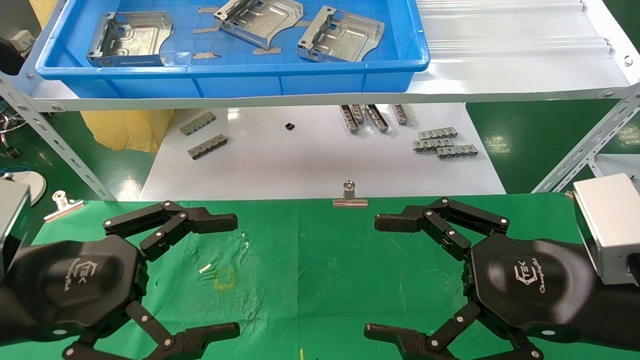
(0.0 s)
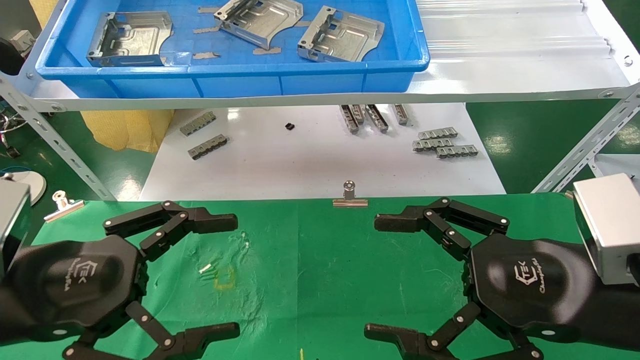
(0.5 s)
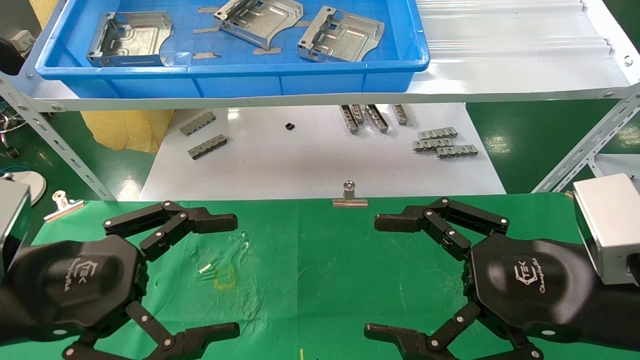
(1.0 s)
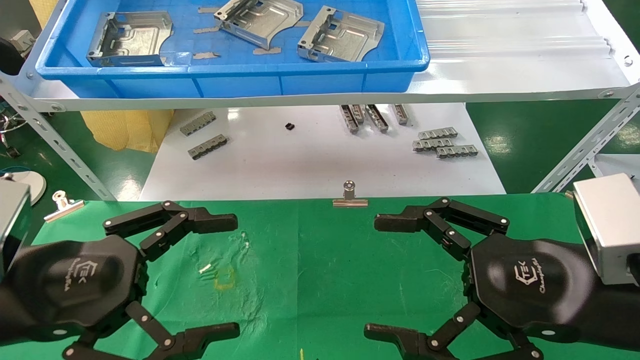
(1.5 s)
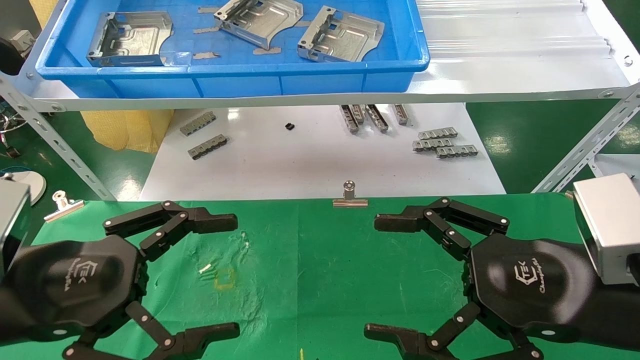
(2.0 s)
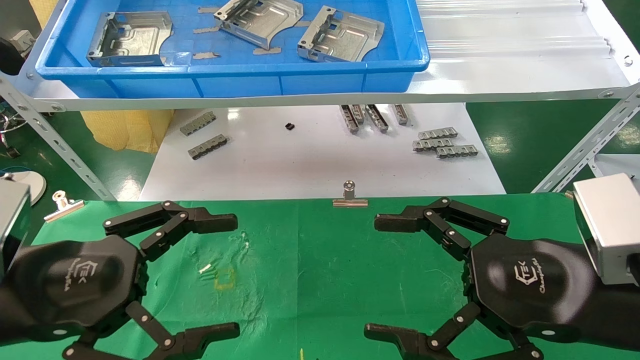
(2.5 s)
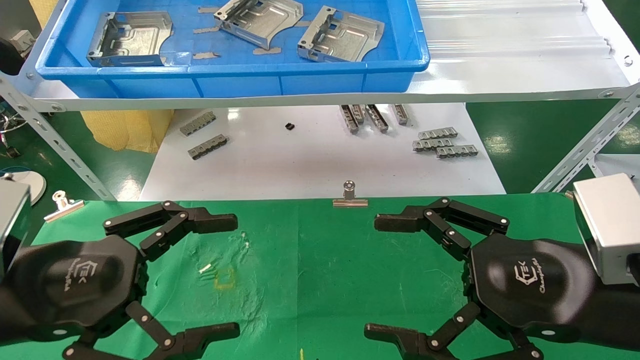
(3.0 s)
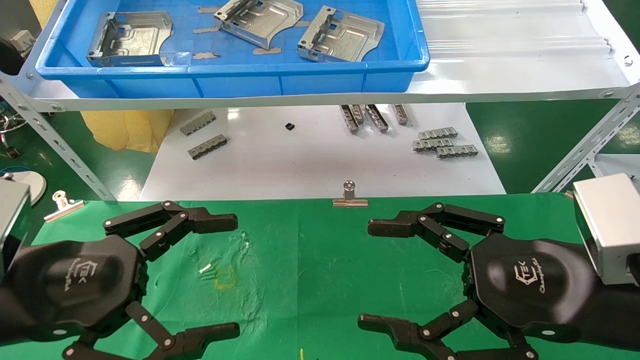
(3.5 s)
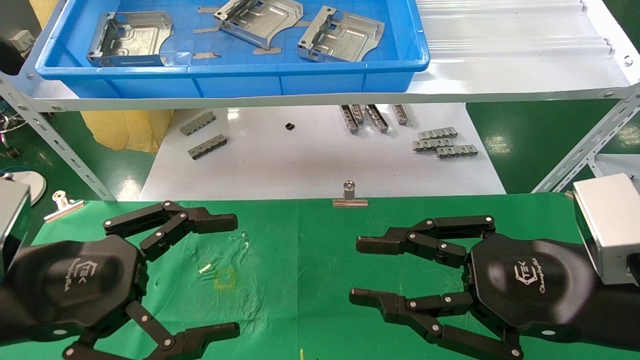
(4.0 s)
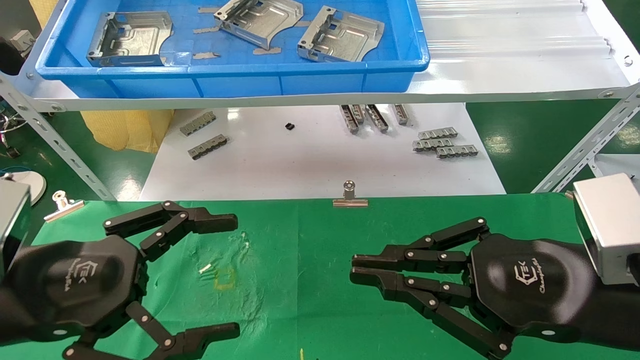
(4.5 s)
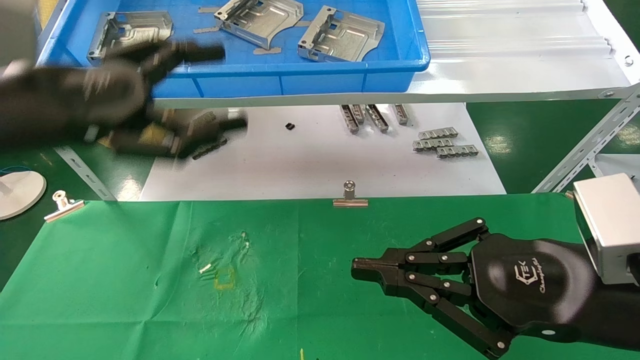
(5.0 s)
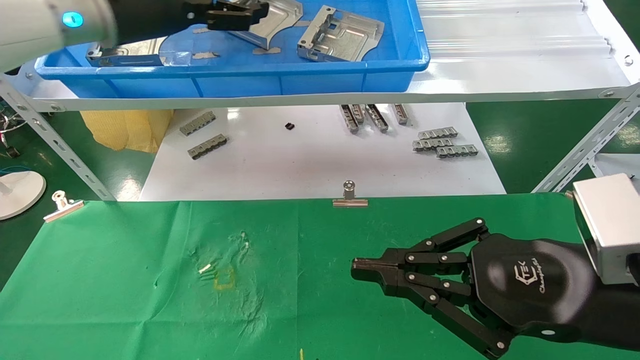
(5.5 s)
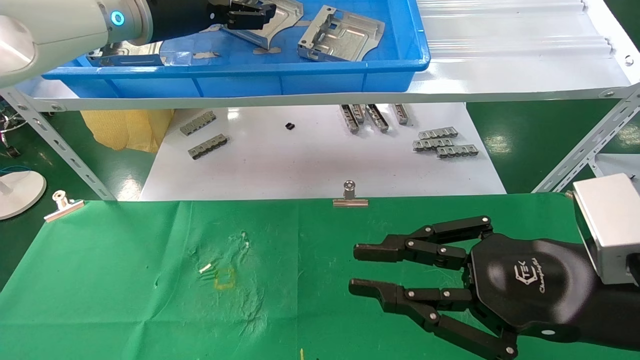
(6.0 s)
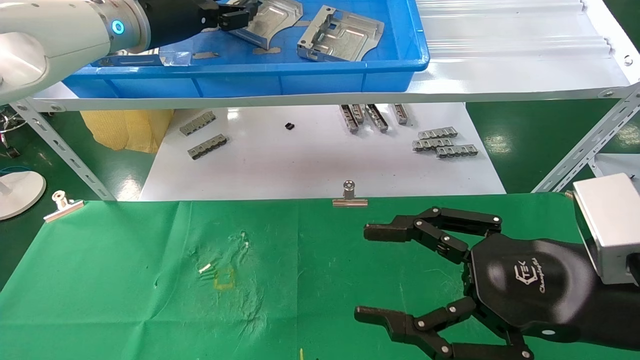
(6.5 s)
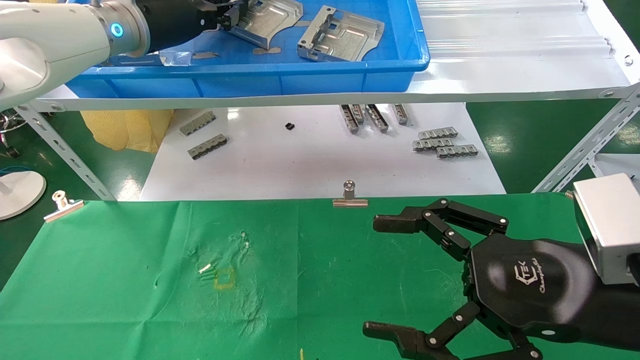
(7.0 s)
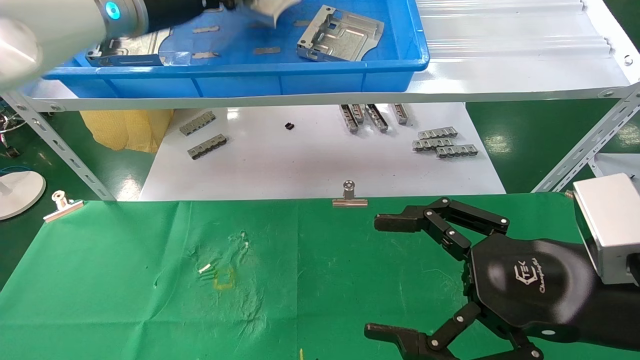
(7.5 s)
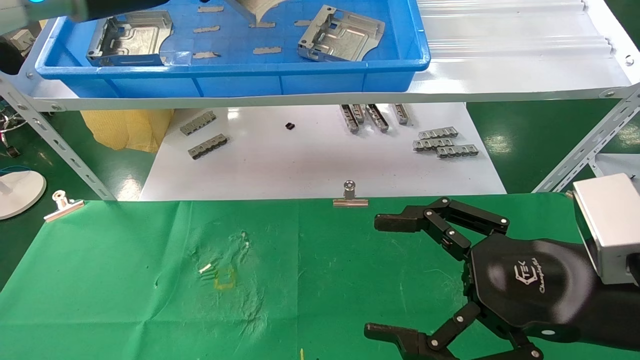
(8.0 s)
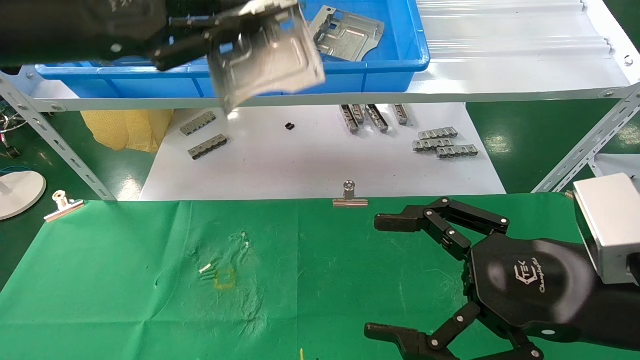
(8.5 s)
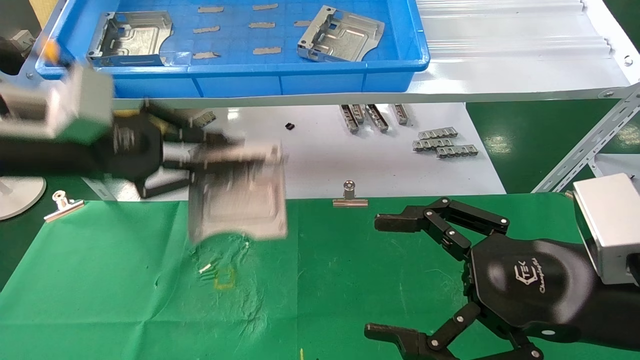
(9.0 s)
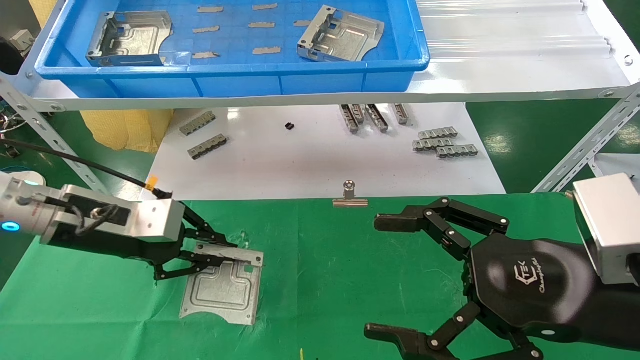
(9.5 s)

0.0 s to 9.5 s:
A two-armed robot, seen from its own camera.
Task of the whole recording: use the mechanical arm to pick up the parts and place them on the table.
Step, 5.0 to 7.0 s: Pick up the hard drive bracket from the feeding area.
0.0 to 2.0 s: Both grippers stay about where they are.
2.0 to 4.0 s: The right gripper closes up.
4.0 to 5.5 s: The left gripper moves upward and forward, some 30 cm. Meanwhile the right gripper closes.
5.5 to 7.5 s: The right gripper opens up. Meanwhile the left gripper closes its fingers.
7.5 to 9.5 s: The left gripper moves downward, approximately 25 cm.

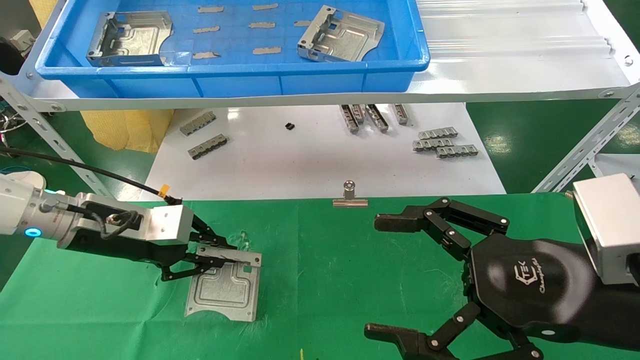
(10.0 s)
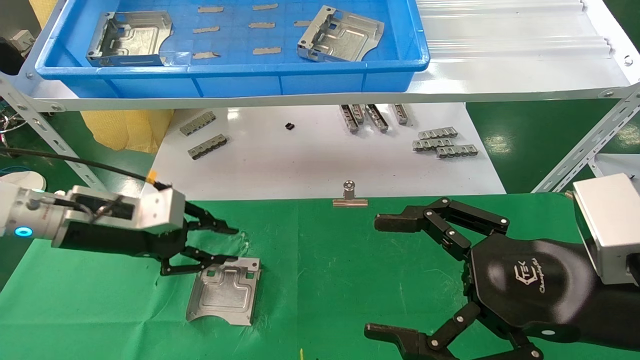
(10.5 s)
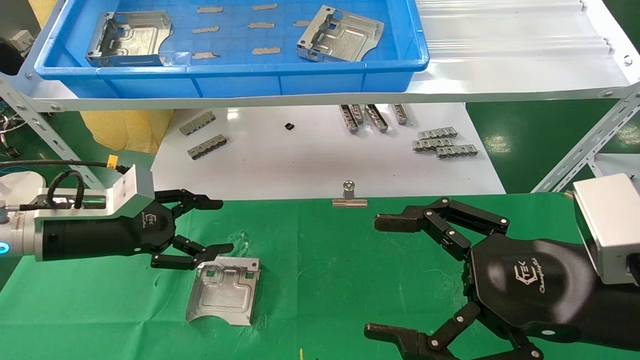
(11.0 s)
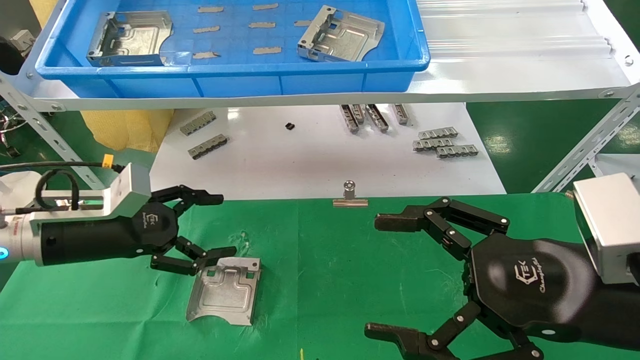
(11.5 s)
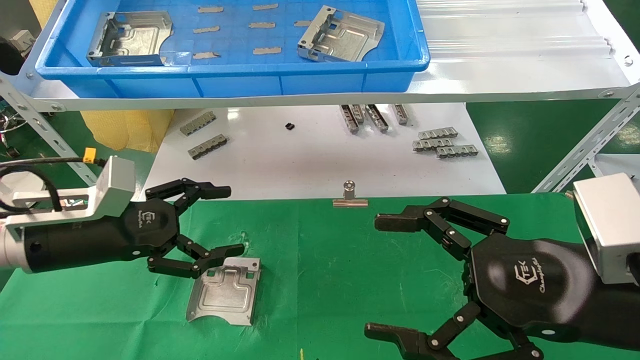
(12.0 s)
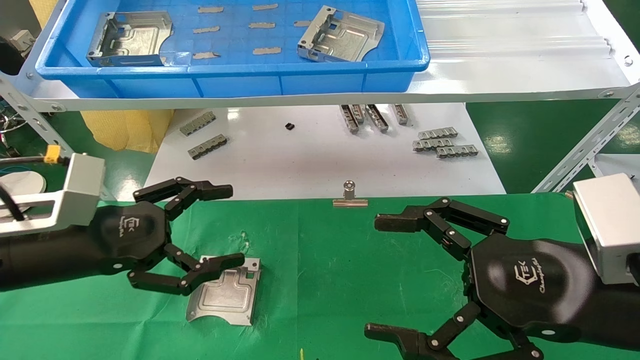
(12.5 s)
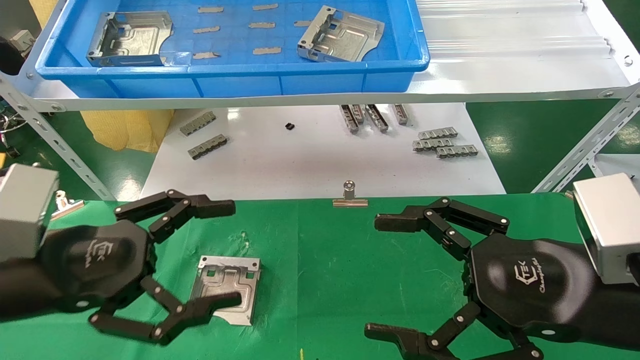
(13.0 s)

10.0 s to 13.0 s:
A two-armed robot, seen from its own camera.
Task of the whole recording: use the mechanical arm to pick up the parts and place them on the table.
10.0 to 11.5 s: The left gripper opens.
11.5 to 13.0 s: The left gripper heads backward, covering approximately 15 cm.
